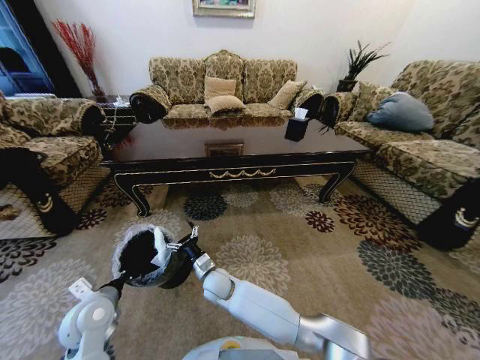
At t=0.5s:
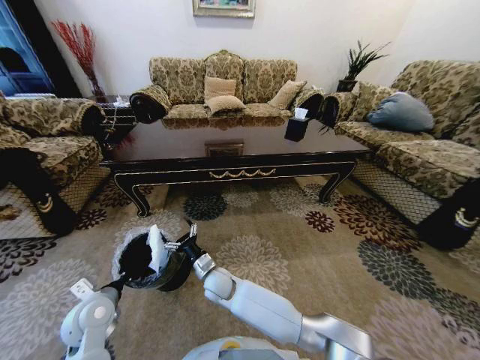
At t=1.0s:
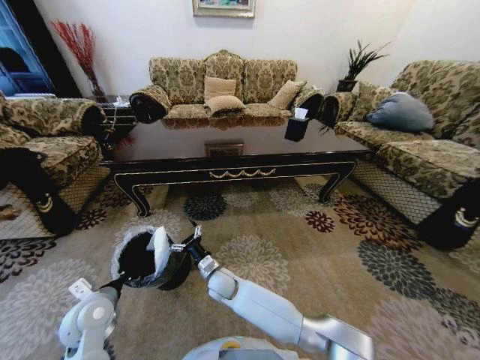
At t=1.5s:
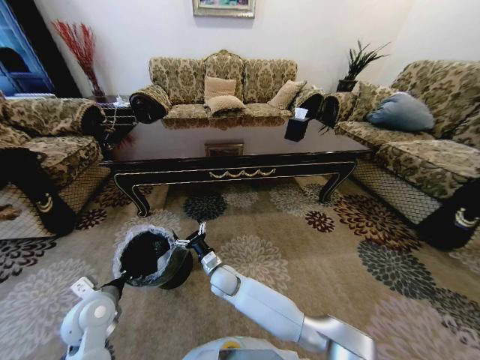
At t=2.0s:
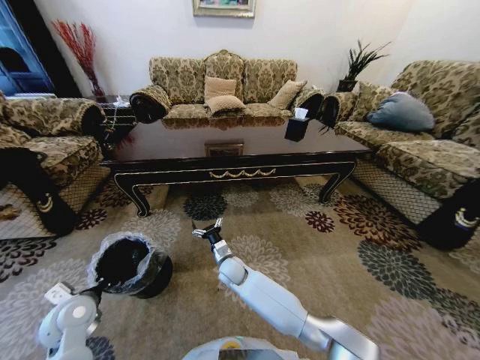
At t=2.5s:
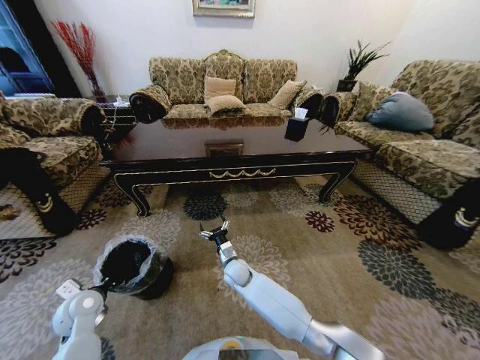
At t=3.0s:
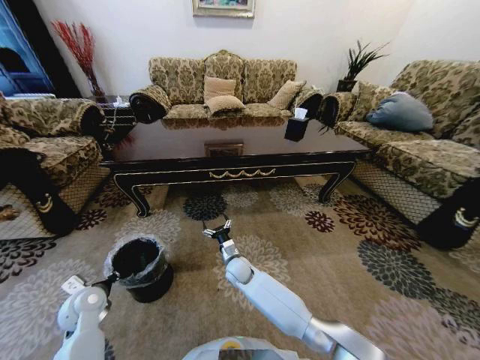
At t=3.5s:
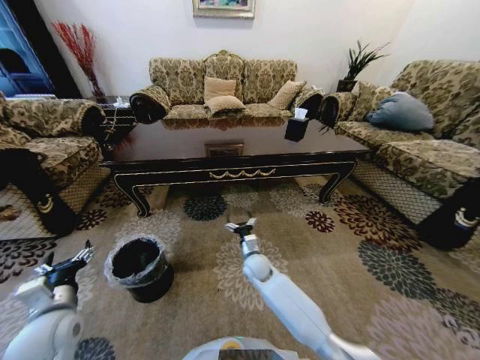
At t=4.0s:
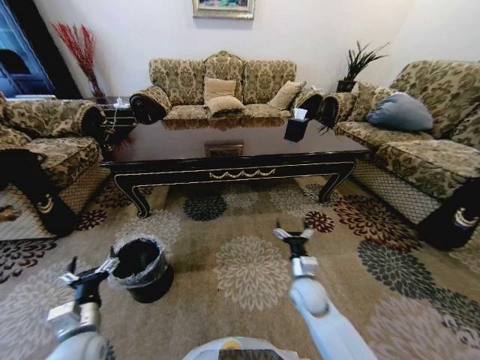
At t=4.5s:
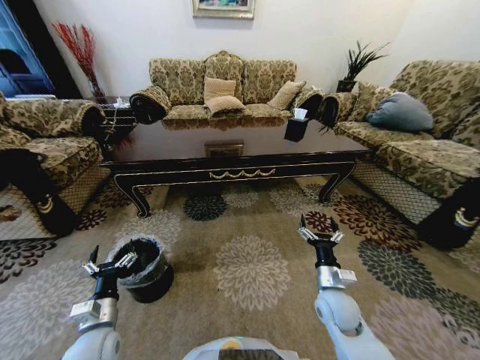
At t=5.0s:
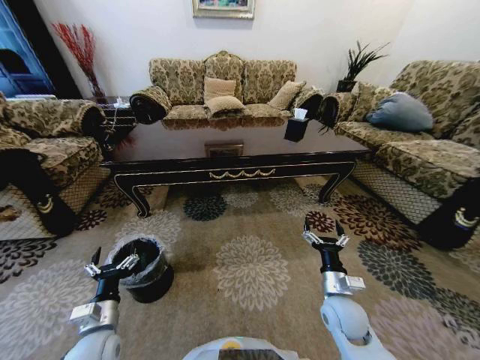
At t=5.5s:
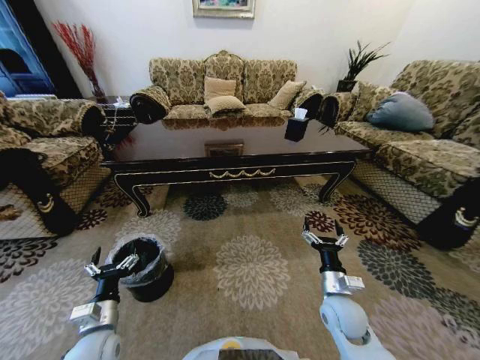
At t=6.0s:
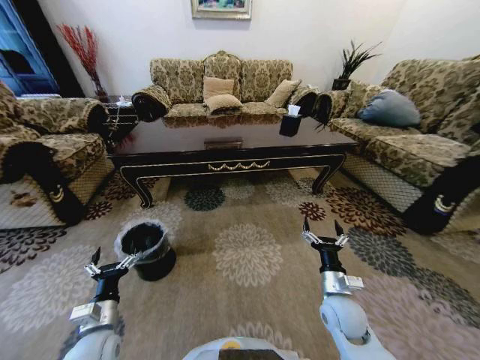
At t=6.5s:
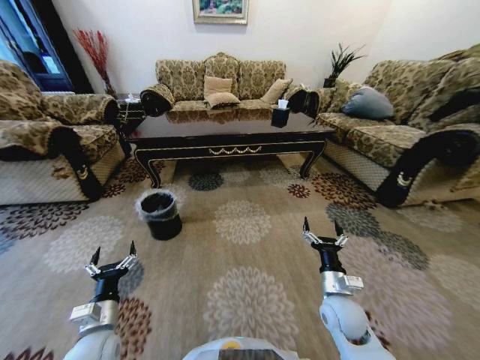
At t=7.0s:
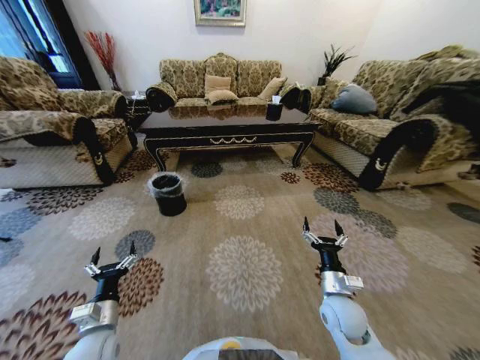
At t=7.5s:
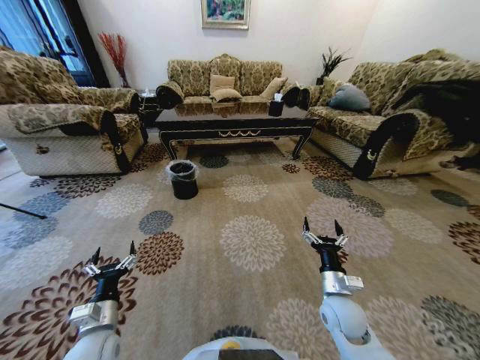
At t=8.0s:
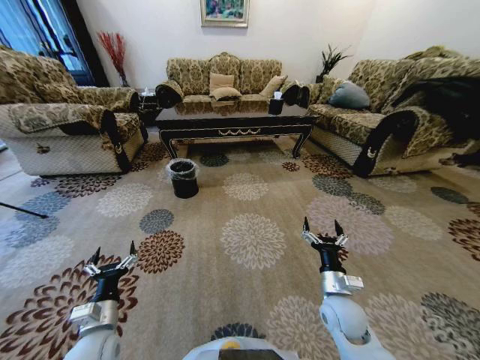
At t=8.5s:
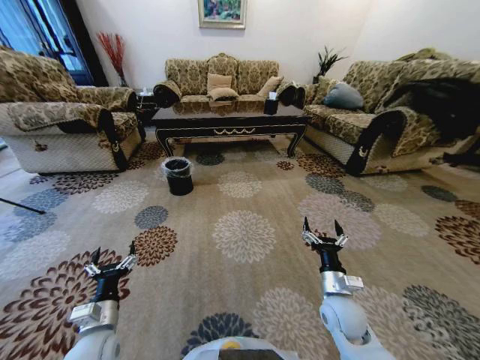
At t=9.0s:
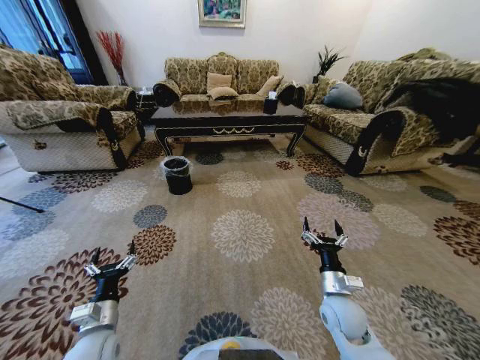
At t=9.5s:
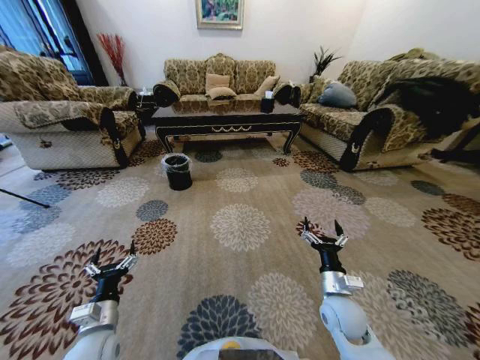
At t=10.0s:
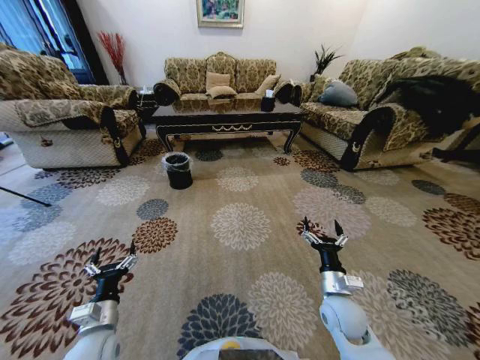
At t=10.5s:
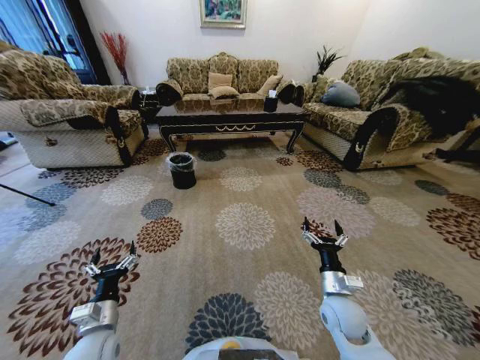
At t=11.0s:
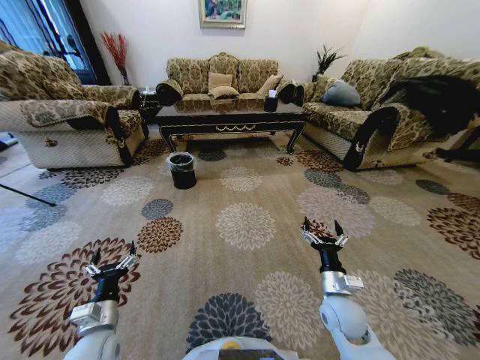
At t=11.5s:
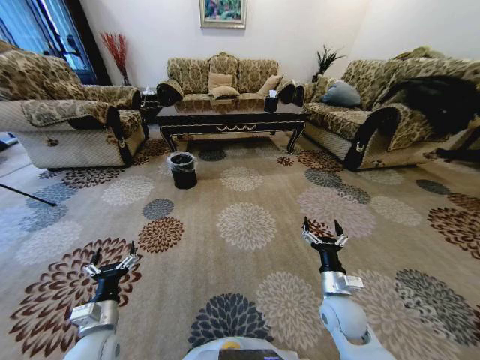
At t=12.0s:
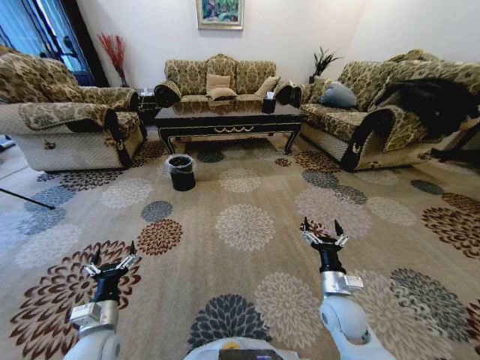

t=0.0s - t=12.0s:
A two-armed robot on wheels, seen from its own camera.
Task of the whole recording: Move to the front of the table and pick up the trash from the floor, then place it into the trash bin.
t=0.0s - t=2.0s: The left gripper moves to the left, approximately 5 cm; the right gripper heads forward and to the right, covering some 5 cm.
t=2.0s - t=4.0s: The right gripper goes roughly 25 cm to the right. The left gripper heads backward and to the right, covering approximately 10 cm, and opens.
t=4.0s - t=6.0s: The right gripper is displaced backward and to the right by about 10 cm.
t=10.0s - t=12.0s: Both grippers stay put.
